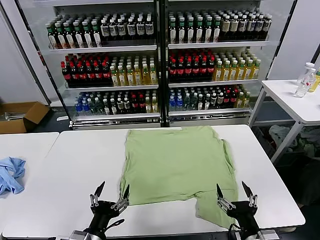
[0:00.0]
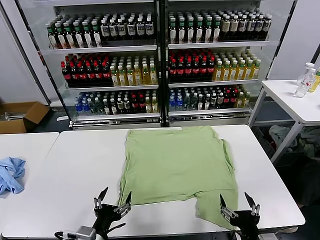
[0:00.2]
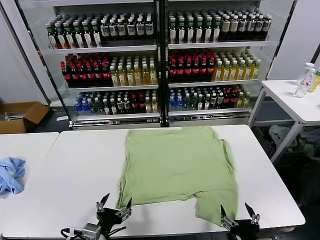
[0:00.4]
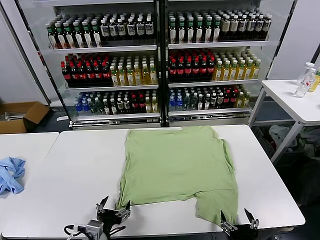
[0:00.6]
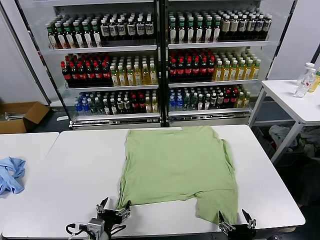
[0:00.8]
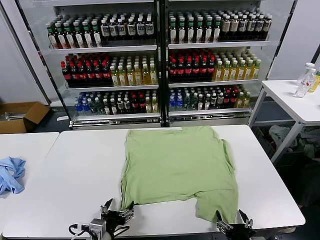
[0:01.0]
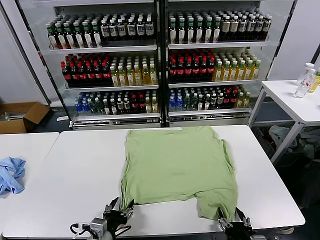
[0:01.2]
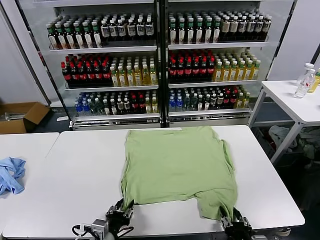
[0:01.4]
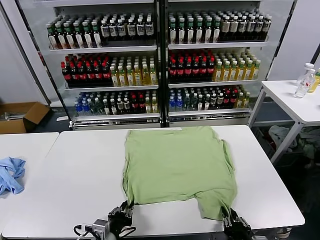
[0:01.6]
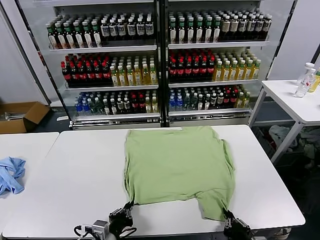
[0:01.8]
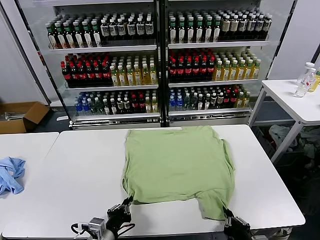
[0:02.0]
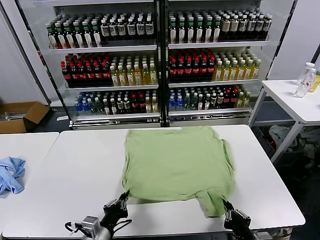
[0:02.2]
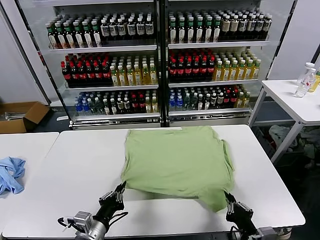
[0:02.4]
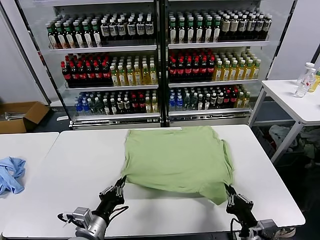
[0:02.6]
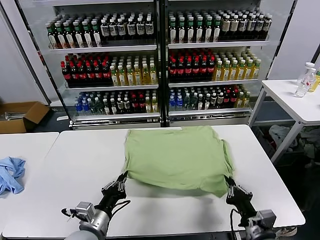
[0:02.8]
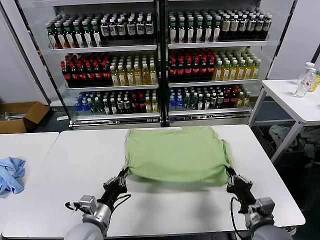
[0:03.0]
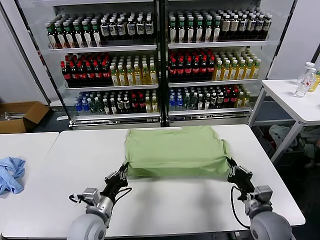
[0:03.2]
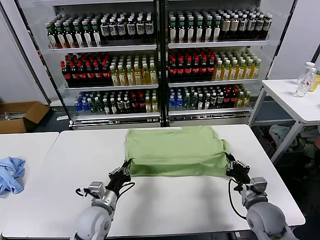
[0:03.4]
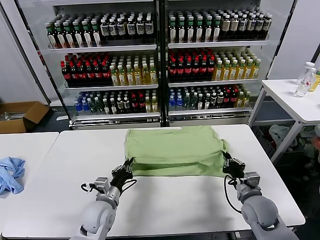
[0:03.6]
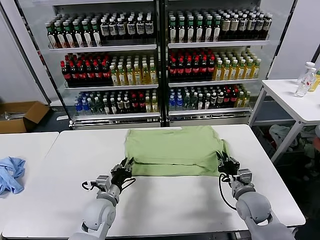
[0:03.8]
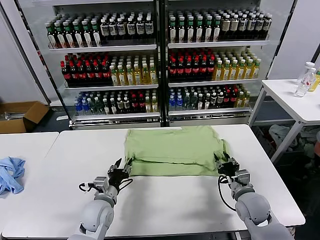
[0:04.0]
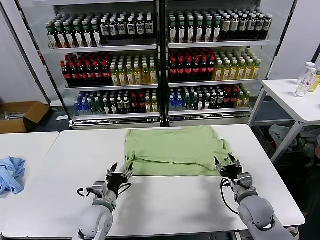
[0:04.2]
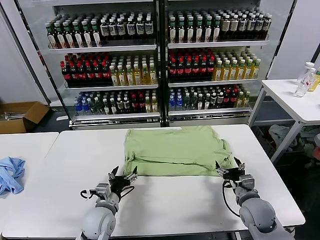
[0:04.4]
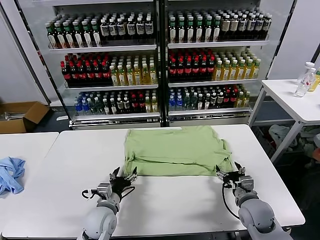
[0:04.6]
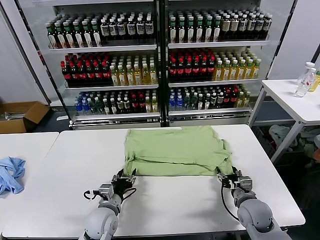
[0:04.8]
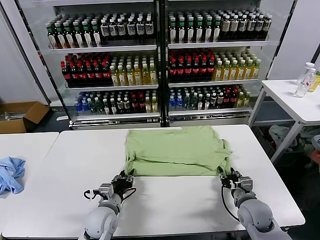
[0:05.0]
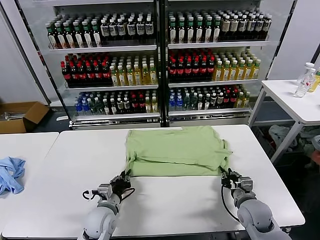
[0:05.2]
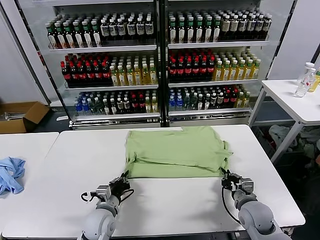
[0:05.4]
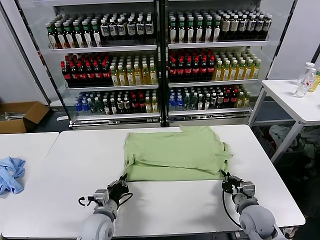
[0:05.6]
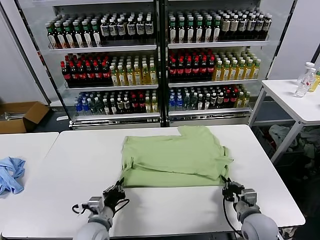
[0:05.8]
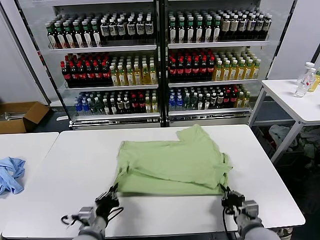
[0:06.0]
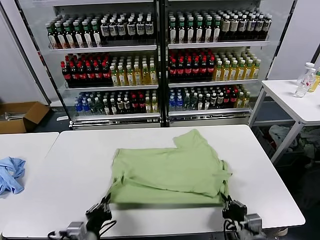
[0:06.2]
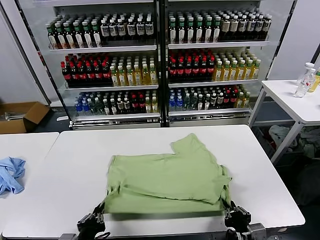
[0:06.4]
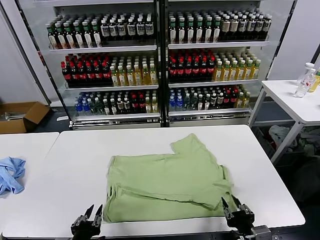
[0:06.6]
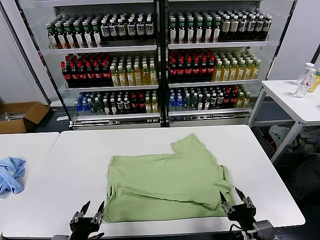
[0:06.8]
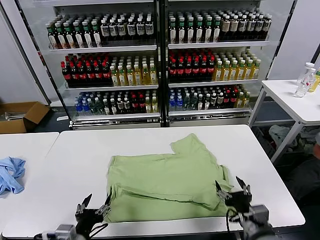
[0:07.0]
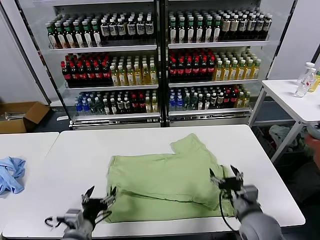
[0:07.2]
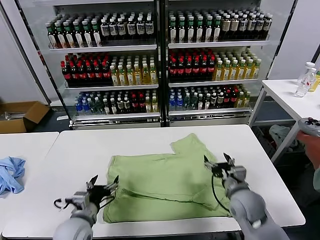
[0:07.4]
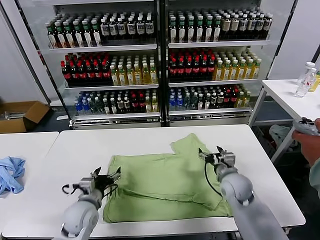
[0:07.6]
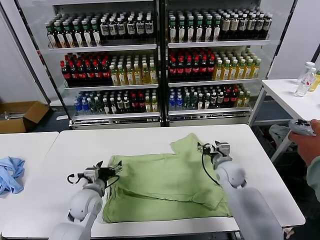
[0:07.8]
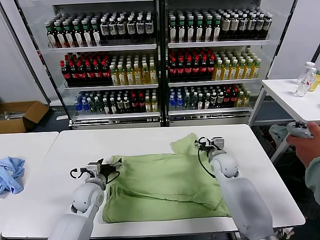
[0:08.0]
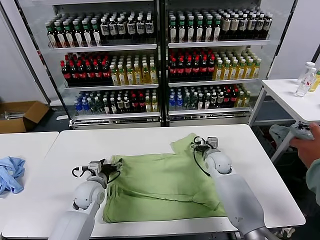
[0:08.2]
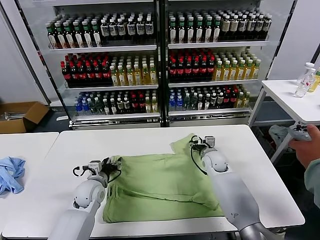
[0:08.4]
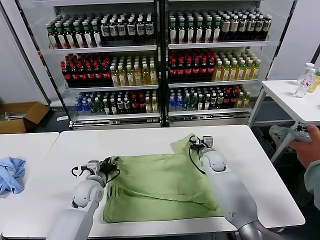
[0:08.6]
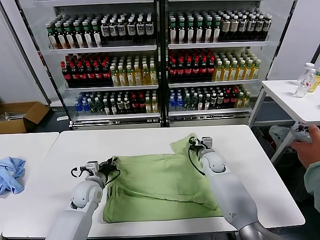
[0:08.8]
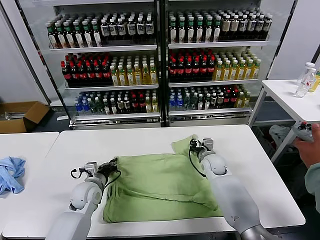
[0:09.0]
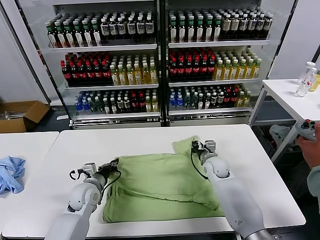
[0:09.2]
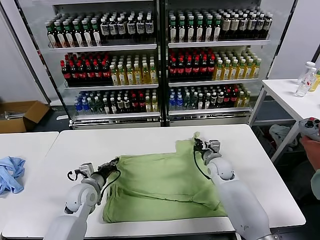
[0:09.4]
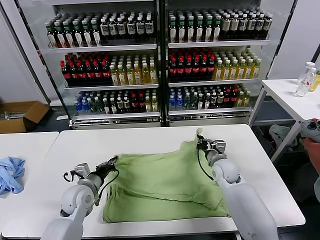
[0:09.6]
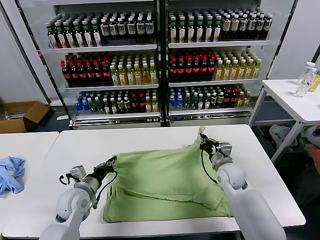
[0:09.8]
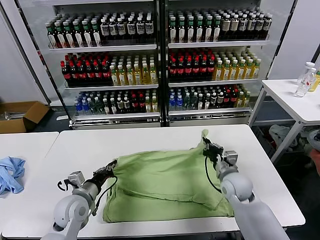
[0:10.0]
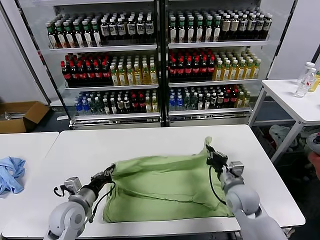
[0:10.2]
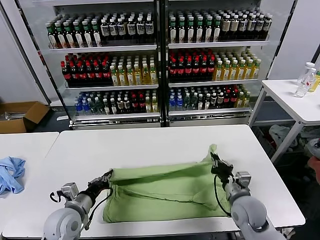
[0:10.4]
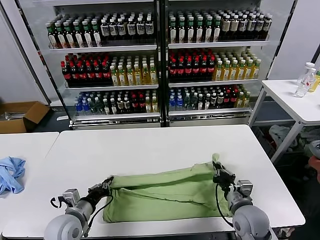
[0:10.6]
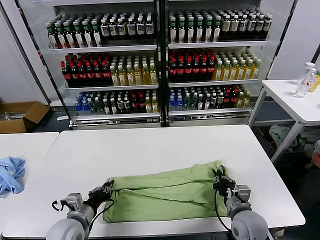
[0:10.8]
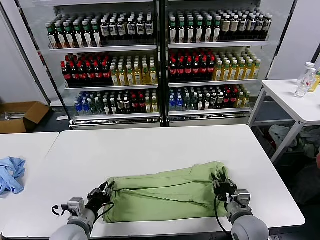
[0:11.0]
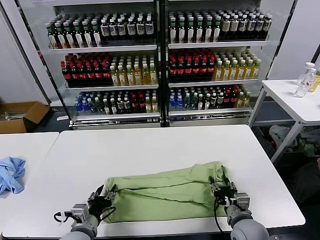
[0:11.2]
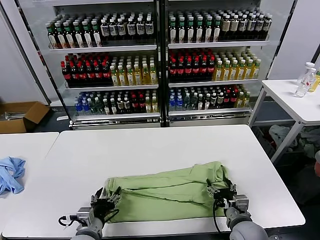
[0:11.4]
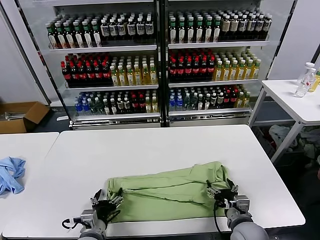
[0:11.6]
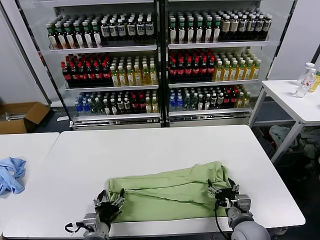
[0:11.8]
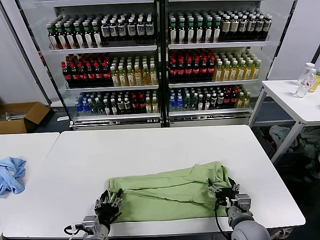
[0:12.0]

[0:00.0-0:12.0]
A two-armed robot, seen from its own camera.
Task of the whole recording: fold and organize the clothes.
Step, 0:00.0 to 0:01.8: use both grippers simultaneously to clamp the lower edge of the clothing fabric.
Step, 0:02.0 to 0:04.2: use both grippers to drag the lower edge of the fabric forward and fold it over the upper edge.
Step, 0:04.4 to 0:06.6: Drag the clothes downward with both gripper.
Step, 0:06.8 to 0:08.8: use both grippers simultaneously to clamp the upper edge of the clothing fabric.
Step, 0:09.2 to 0:11.0: use both grippers to drag the upper edge of the fabric backward and fold it over the lower edge.
0:01.6 to 0:03.0: The left gripper is displaced forward by some 5 cm, while the right gripper travels forward by some 15 cm.
0:03.0 to 0:04.4: Both grippers move forward, roughly 5 cm. The left gripper opens. Meanwhile the right gripper opens its fingers.
0:04.4 to 0:06.0: Both grippers travel together backward, about 10 cm. The left gripper closes its fingers. Meanwhile the right gripper closes up.
0:06.0 to 0:07.6: The left gripper heads forward, covering roughly 10 cm, and opens; the right gripper is displaced forward by roughly 20 cm, and opens its fingers.
0:07.6 to 0:09.0: The right gripper moves forward and downward, some 10 cm, and closes; the left gripper goes some 5 cm forward, and closes its fingers.
0:09.0 to 0:10.4: The right gripper heads backward, covering some 20 cm, while the left gripper moves backward, roughly 10 cm.
0:10.4 to 0:12.0: The right gripper moves backward, some 5 cm, and opens. Meanwhile the left gripper heads to the right, backward and downward, covering some 15 cm, and opens its fingers.

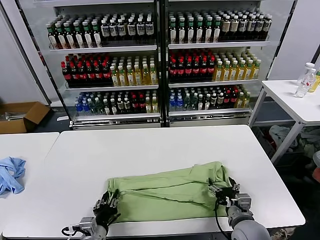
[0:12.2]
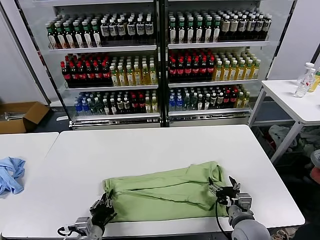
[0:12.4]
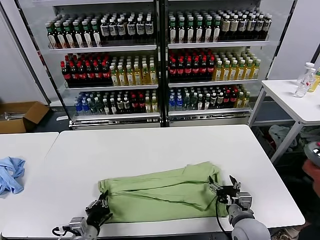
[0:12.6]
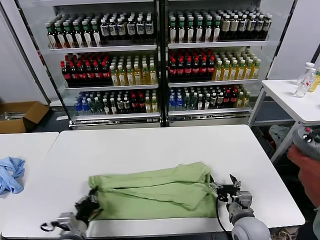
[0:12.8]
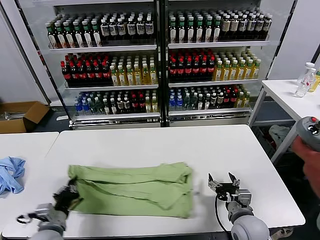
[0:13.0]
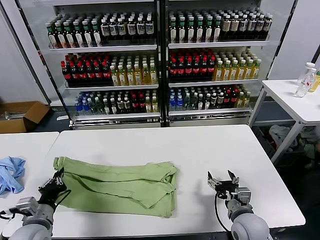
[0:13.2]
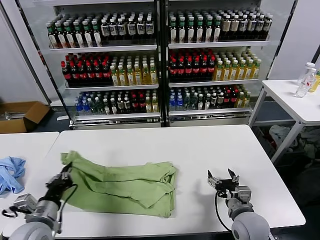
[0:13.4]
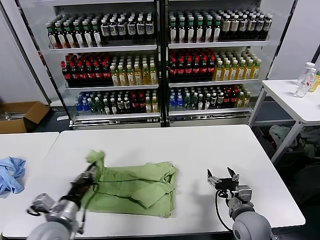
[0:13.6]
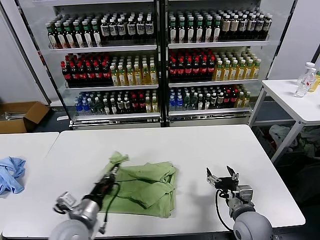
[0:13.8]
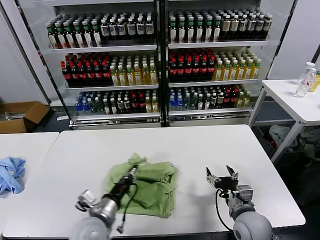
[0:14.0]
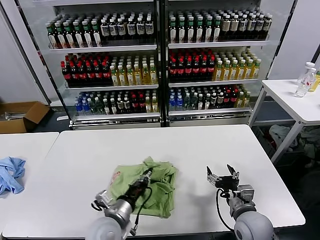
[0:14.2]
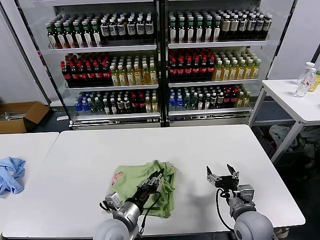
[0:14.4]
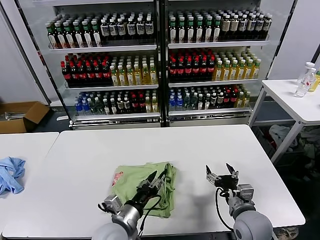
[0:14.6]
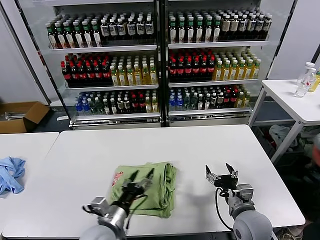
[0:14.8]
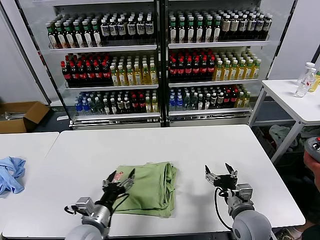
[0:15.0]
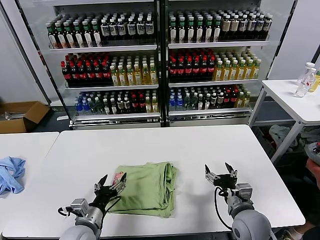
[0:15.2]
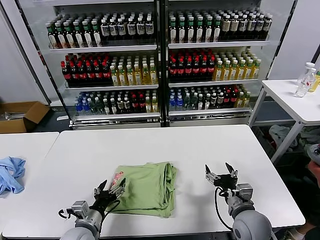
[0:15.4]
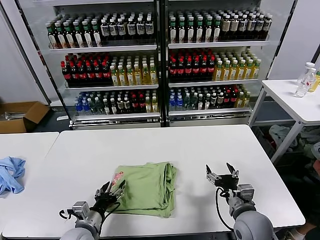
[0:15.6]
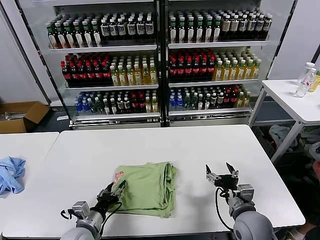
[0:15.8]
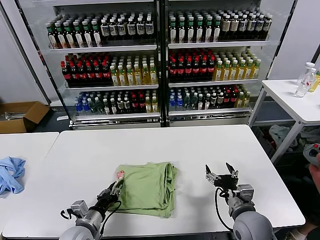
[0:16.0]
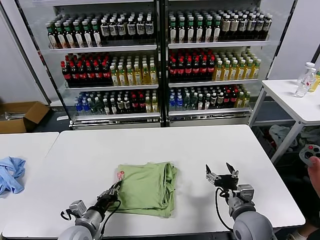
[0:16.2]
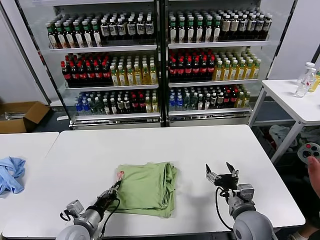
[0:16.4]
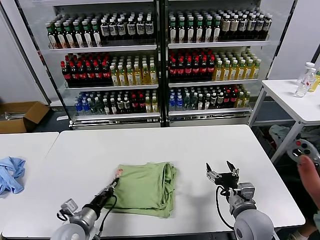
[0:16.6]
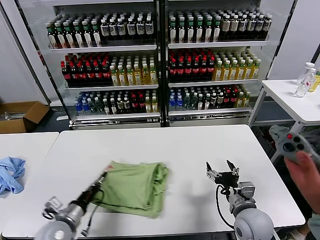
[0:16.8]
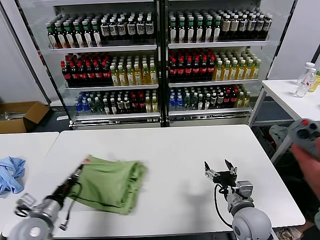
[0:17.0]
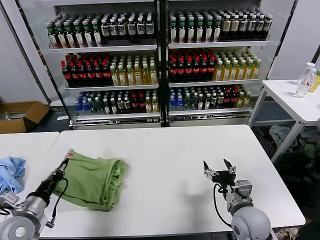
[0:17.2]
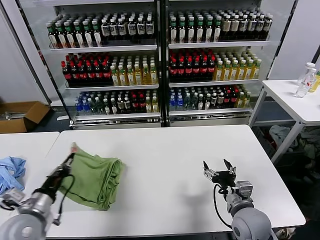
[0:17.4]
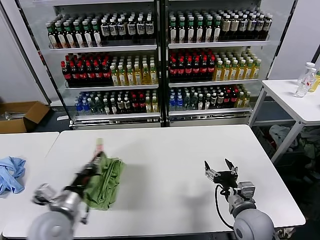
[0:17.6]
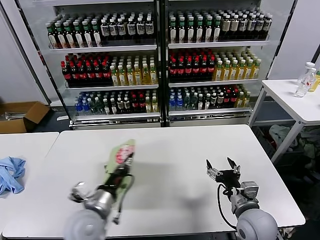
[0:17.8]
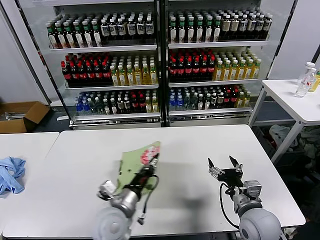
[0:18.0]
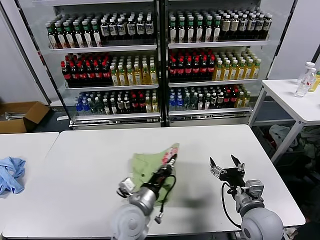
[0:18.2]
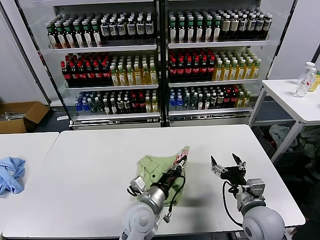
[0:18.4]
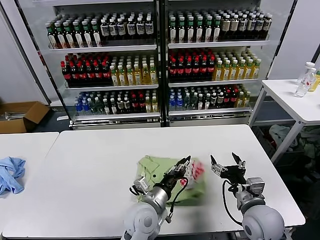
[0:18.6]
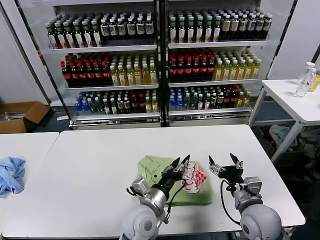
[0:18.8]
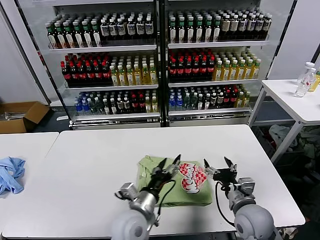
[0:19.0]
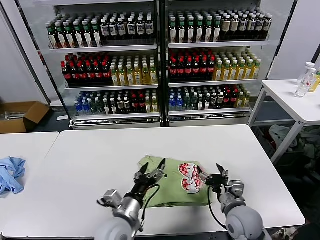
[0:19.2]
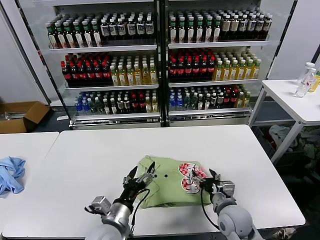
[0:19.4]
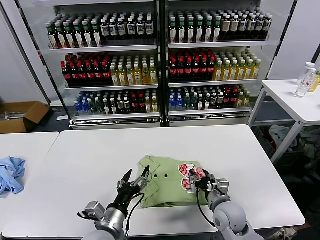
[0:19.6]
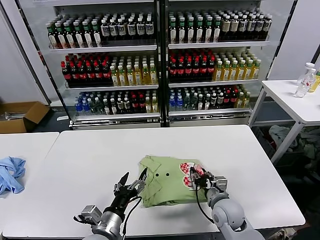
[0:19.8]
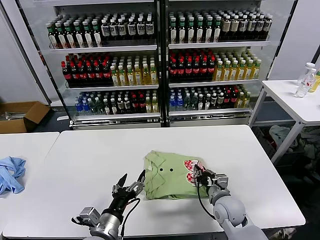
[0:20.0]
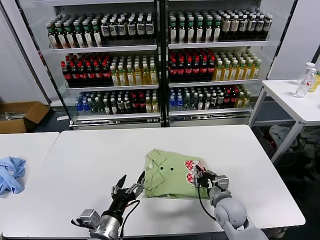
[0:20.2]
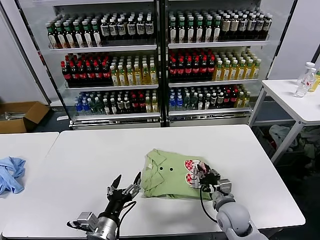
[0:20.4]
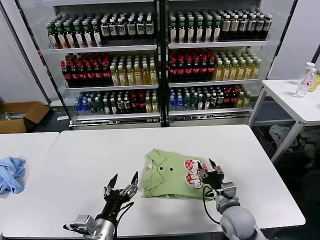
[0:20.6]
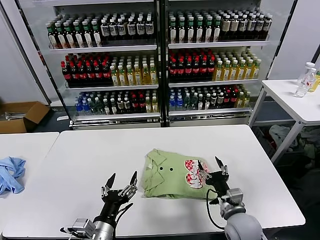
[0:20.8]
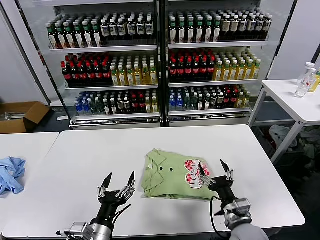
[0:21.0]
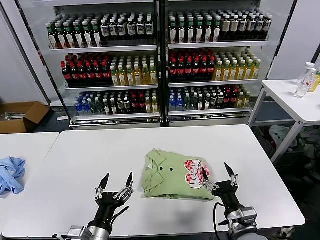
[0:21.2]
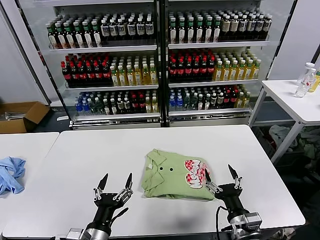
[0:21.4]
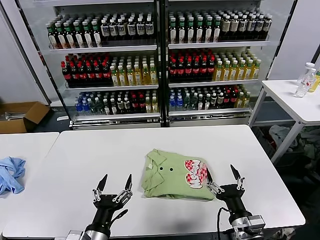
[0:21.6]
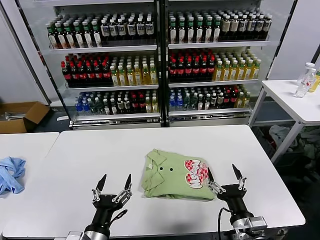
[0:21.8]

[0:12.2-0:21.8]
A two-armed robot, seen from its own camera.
Task of the whole recording: fold and organize the clothes.
Step, 0:12.4 to 0:14.6: use the left gripper to drag the left edge of the fabric to the left and folds it over the right edge.
Step, 0:14.8 to 0:18.6: Flip the folded clothes over with left gripper.
Step, 0:18.8 to 0:20.4: Drag the clothes to the center of the table.
0:12.2 to 0:13.8: The left gripper travels upward by about 10 cm, travels to the left and back again, some 15 cm each way, and closes up.
0:13.8 to 0:15.4: The left gripper moves downward, approximately 5 cm, moves roughly 10 cm to the right and comes back, and opens up.
0:15.4 to 0:17.0: The left gripper heads to the left, covering approximately 10 cm, and closes.
0:17.0 to 0:18.6: The left gripper goes about 30 cm to the right.
0:18.6 to 0:20.2: The right gripper moves downward and forward, about 10 cm, and closes its fingers; the left gripper heads to the left and backward, covering roughly 15 cm, and opens its fingers.
0:20.2 to 0:21.8: The right gripper shifts about 15 cm backward and upward, and opens. Meanwhile the left gripper shifts roughly 5 cm backward.
